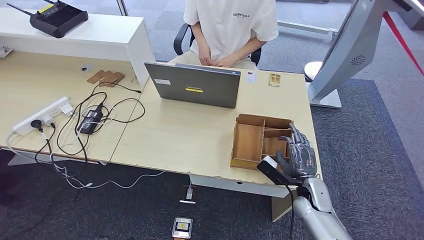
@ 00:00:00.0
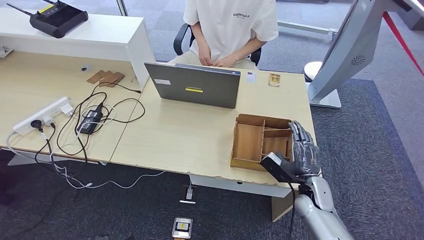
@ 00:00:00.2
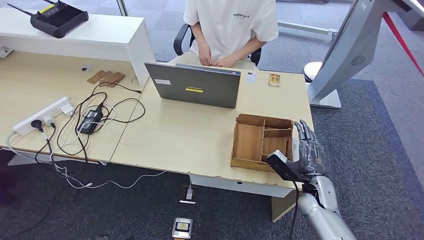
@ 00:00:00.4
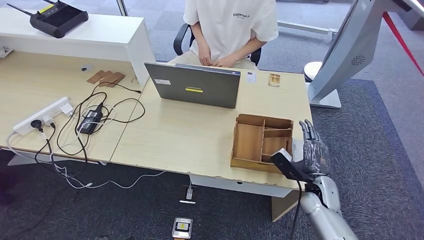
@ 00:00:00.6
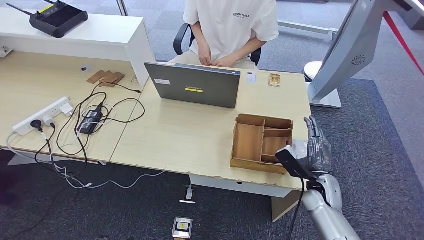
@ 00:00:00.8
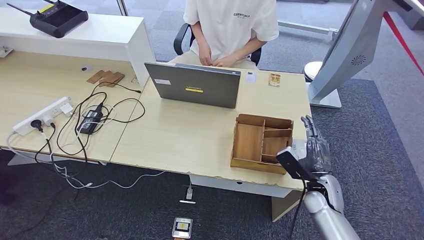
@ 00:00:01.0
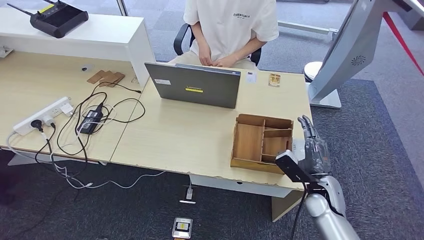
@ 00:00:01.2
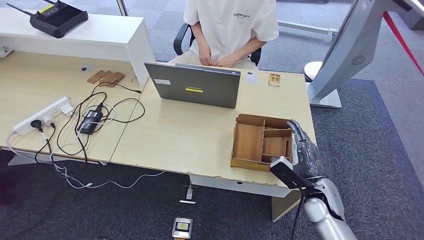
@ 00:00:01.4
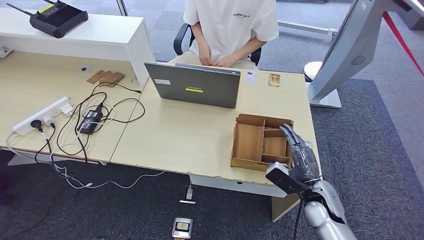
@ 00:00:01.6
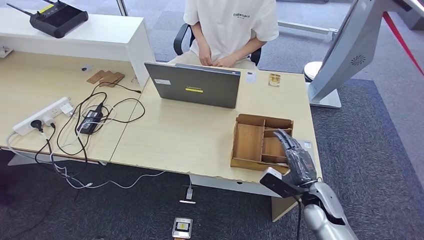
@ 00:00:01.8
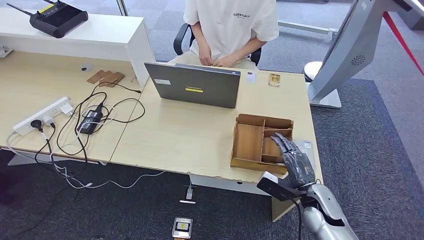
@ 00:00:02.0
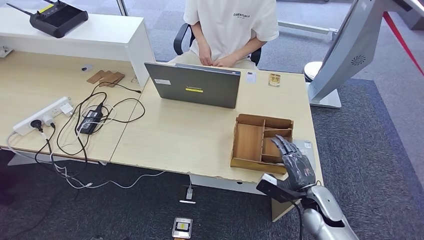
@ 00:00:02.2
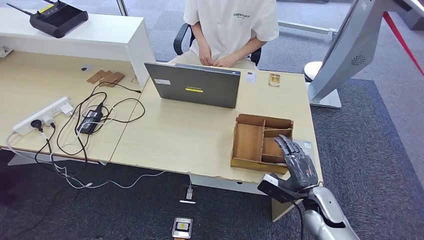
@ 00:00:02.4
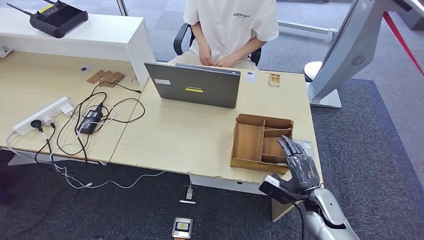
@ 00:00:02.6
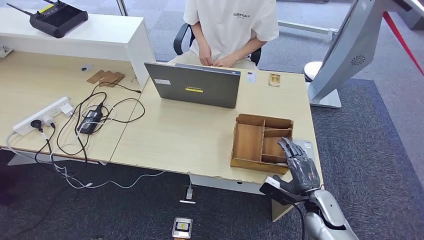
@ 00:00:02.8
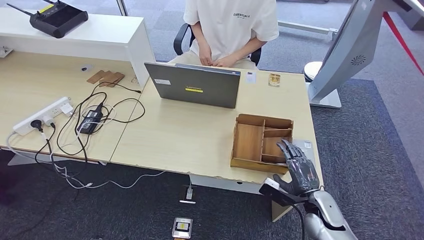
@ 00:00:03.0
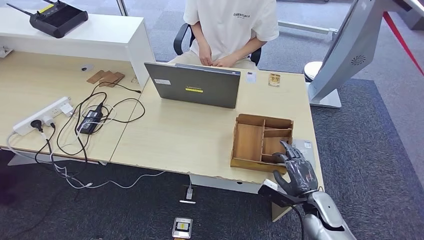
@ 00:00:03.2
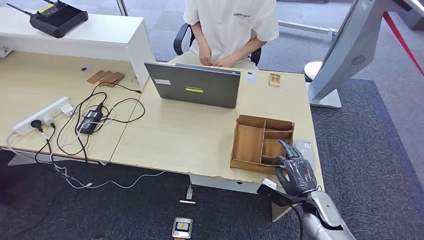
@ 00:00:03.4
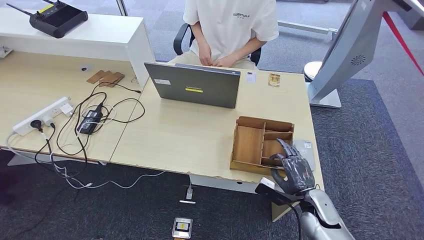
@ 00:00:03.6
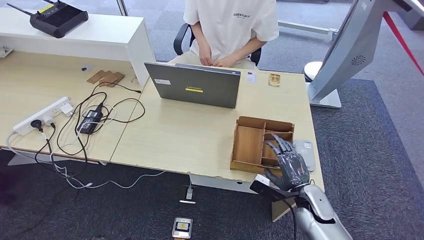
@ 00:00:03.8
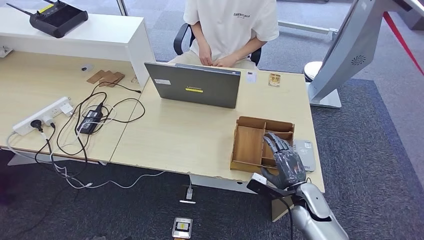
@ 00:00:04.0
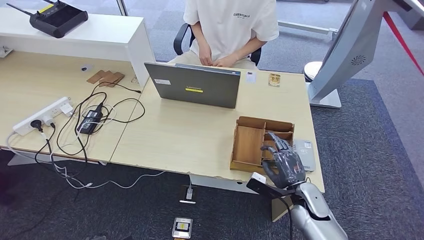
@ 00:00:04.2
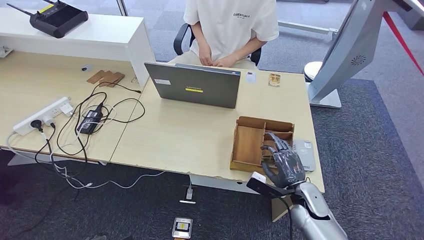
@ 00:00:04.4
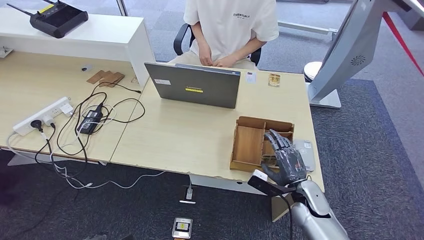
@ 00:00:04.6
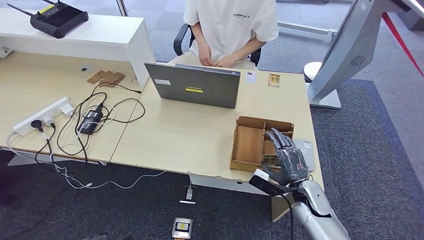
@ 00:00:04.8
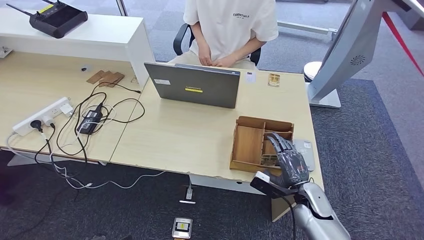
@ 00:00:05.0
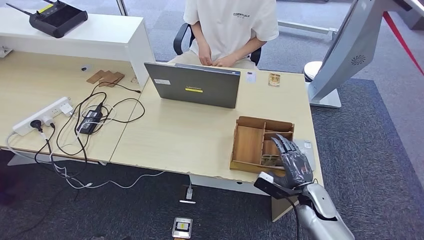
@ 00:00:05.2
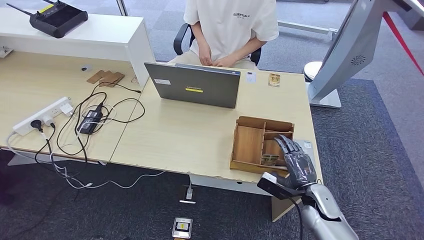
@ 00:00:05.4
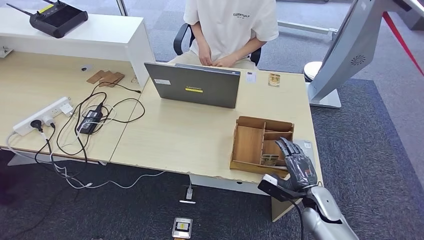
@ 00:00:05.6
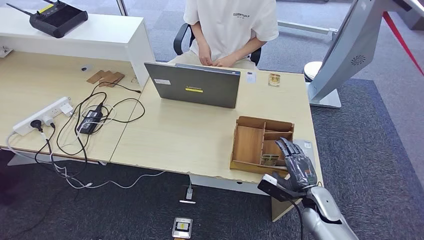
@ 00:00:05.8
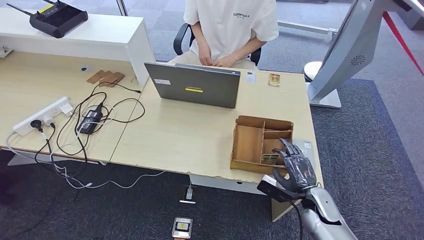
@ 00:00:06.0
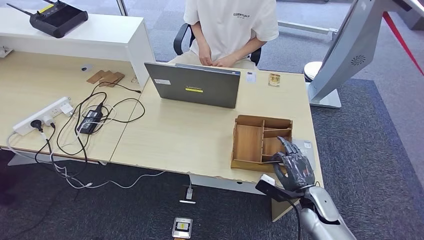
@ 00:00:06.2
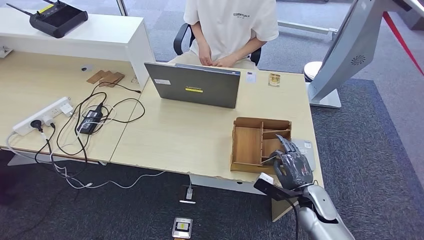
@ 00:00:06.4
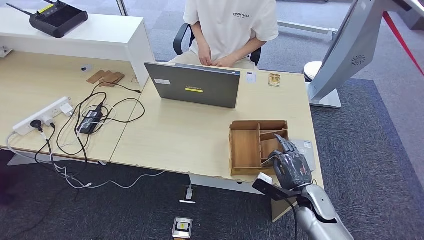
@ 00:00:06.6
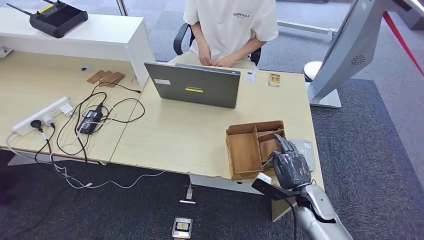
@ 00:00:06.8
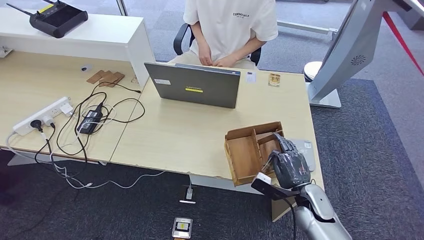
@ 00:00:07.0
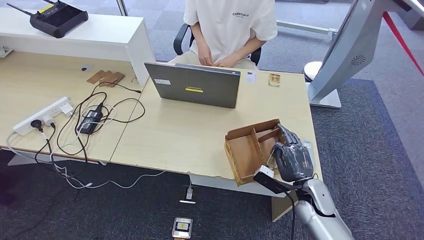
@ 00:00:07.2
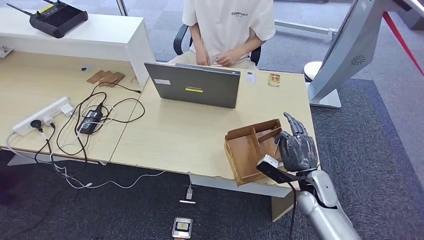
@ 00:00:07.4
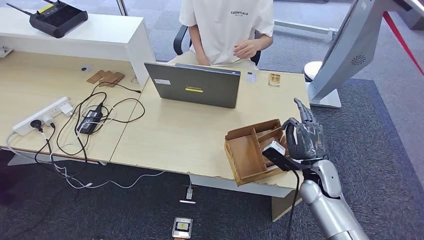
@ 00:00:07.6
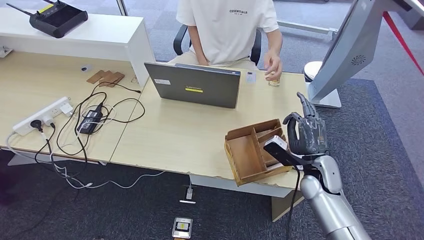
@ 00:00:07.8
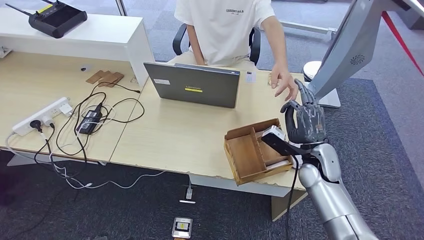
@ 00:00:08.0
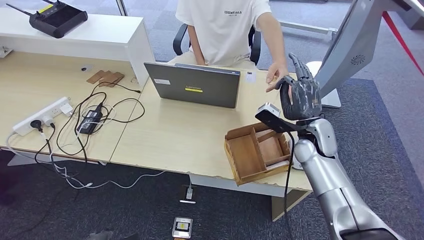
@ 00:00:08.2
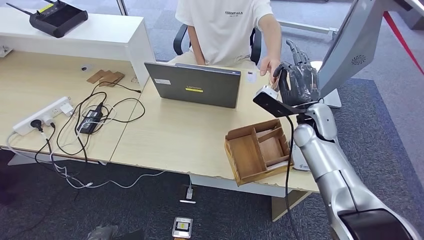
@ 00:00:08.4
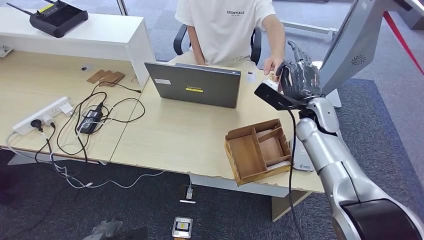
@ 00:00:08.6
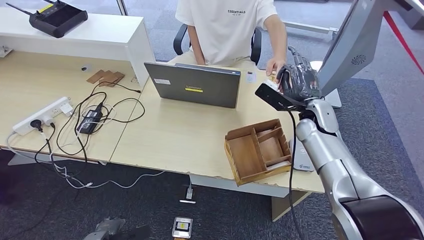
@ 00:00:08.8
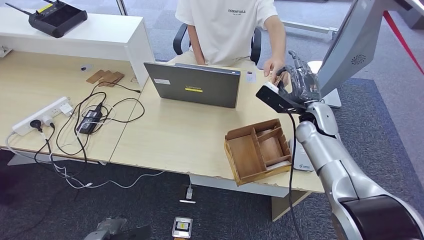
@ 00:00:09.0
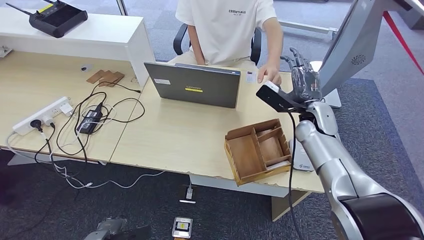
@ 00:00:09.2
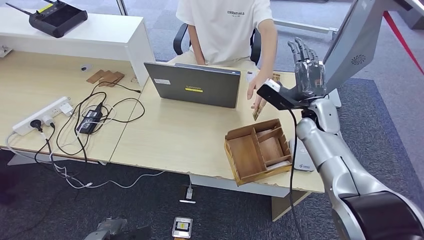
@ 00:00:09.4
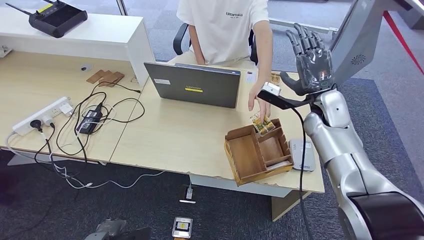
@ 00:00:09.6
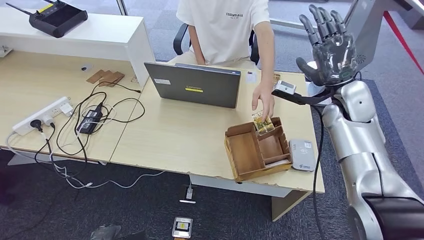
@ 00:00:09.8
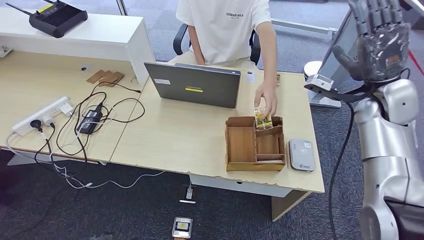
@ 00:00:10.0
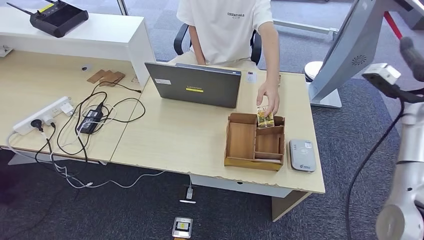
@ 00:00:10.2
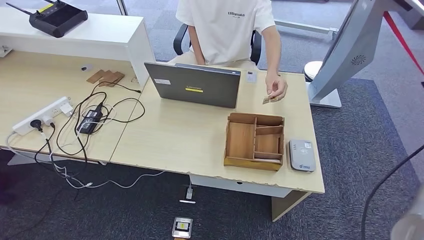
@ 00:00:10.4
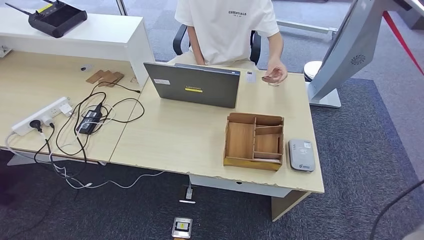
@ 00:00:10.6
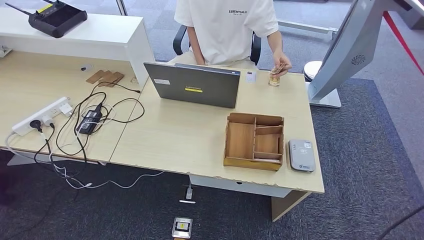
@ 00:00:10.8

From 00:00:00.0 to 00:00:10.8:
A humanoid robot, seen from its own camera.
Step, from 00:00:05.8 to 00:00:07.8: Pick up the room key from the key card box.
Step, from 00:00:08.2 to 00:00:10.8: Hand the room key to the person.
From 00:00:00.0 to 00:00:06.2: There are only small adjustments of the hands.
From 00:00:06.2 to 00:00:07.8: The right hand goes approximately 10 cm upward and forward.
From 00:00:07.8 to 00:00:09.2: The left hand shifts some 5 cm forward, while the right hand heads forward and upward, covering approximately 15 cm.
From 00:00:09.2 to 00:00:10.8: The left hand is displaced backward by some 10 cm. The right hand is displaced to the right and backward by some 35 cm.
